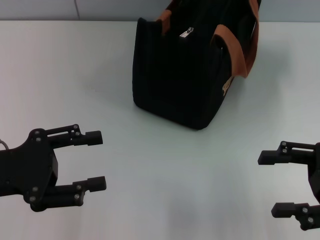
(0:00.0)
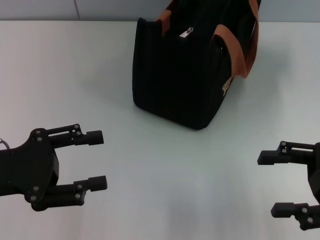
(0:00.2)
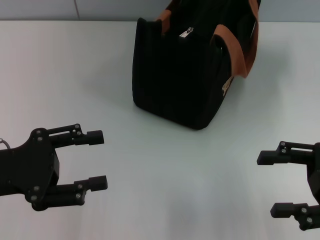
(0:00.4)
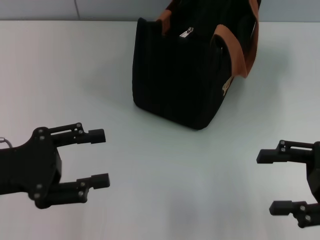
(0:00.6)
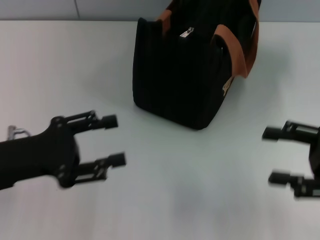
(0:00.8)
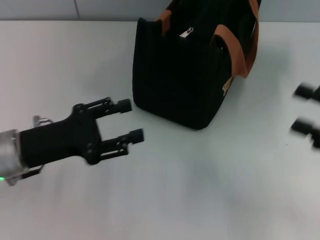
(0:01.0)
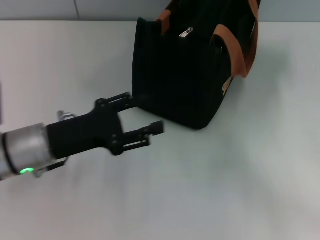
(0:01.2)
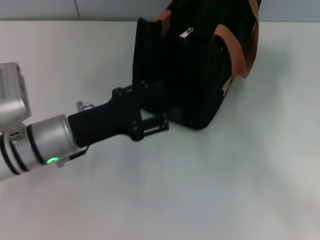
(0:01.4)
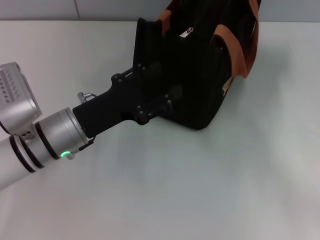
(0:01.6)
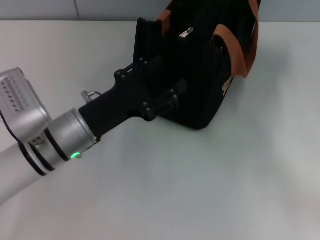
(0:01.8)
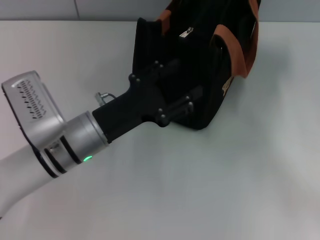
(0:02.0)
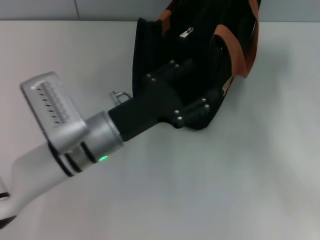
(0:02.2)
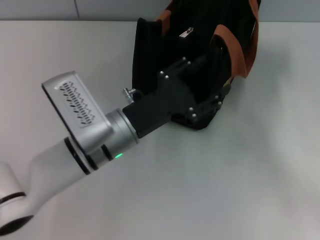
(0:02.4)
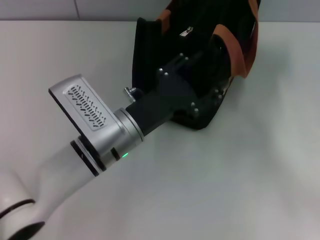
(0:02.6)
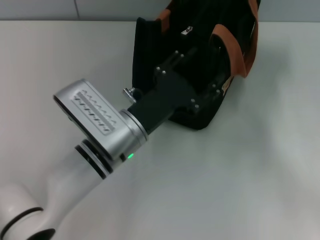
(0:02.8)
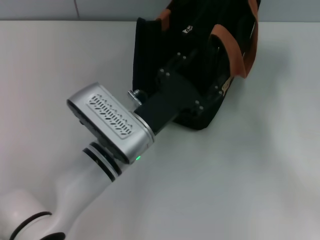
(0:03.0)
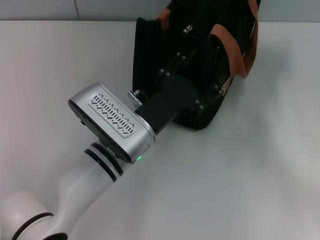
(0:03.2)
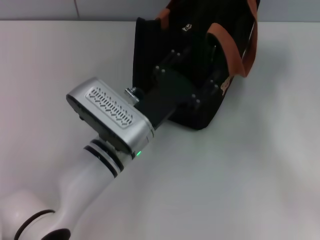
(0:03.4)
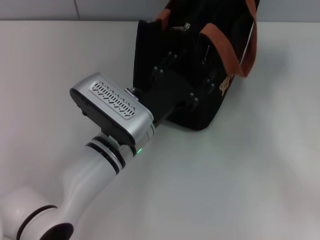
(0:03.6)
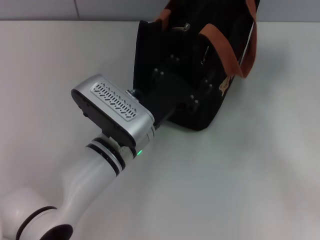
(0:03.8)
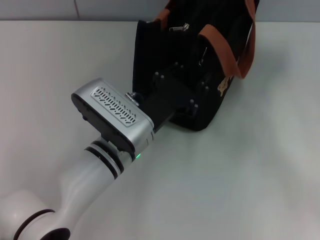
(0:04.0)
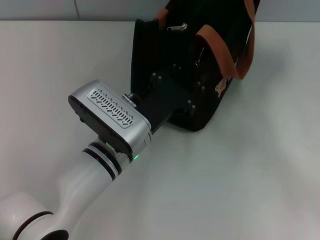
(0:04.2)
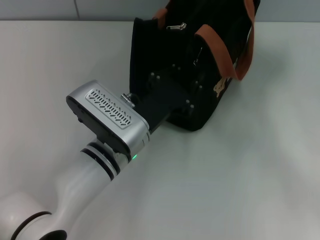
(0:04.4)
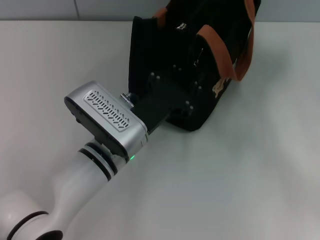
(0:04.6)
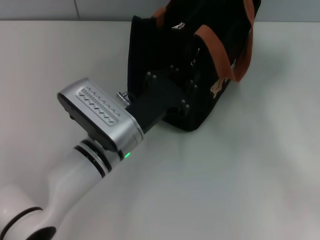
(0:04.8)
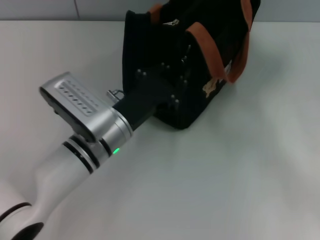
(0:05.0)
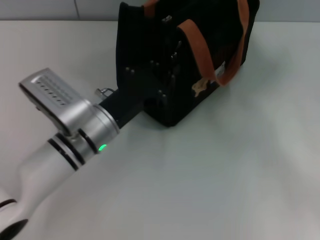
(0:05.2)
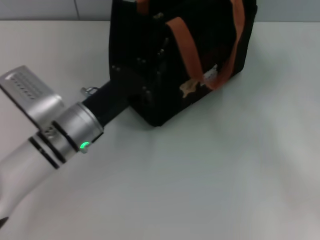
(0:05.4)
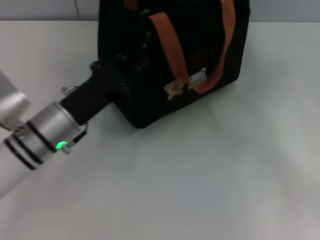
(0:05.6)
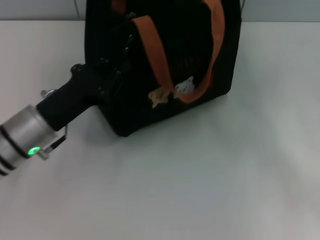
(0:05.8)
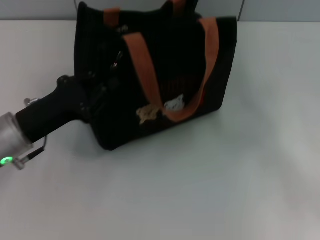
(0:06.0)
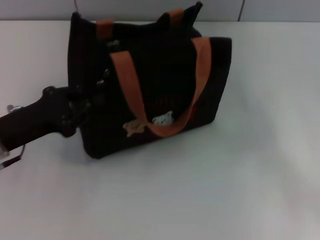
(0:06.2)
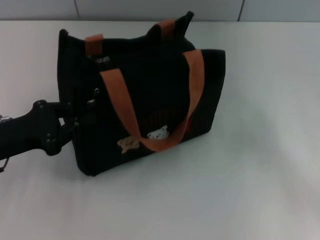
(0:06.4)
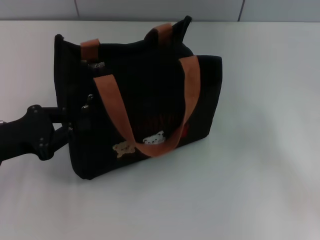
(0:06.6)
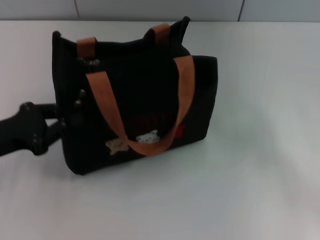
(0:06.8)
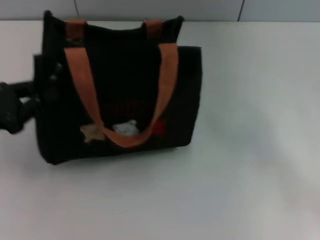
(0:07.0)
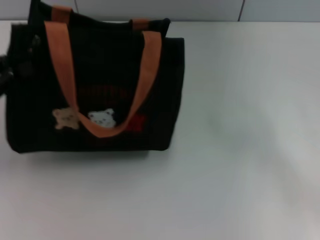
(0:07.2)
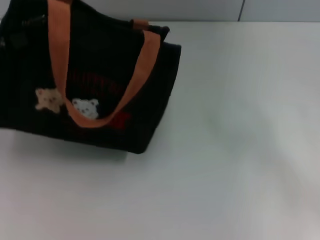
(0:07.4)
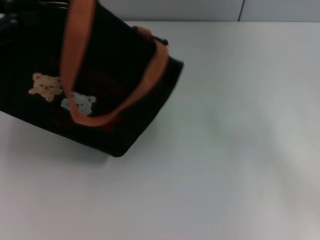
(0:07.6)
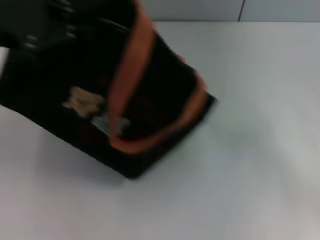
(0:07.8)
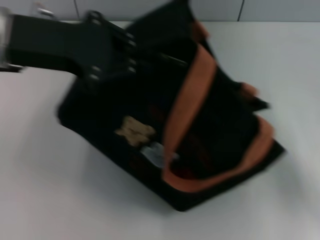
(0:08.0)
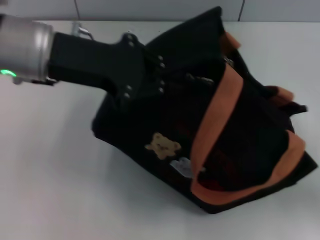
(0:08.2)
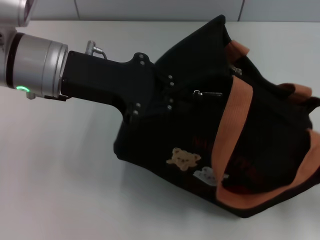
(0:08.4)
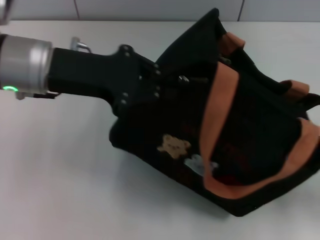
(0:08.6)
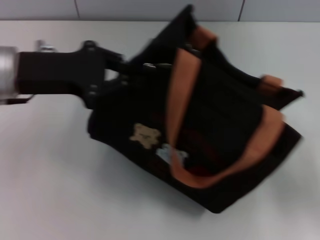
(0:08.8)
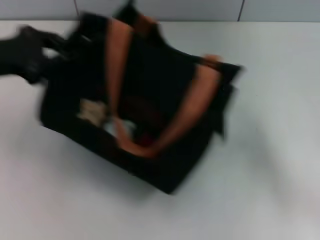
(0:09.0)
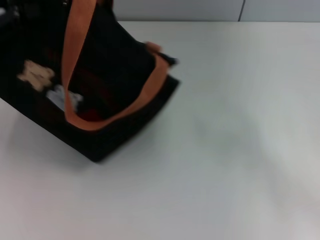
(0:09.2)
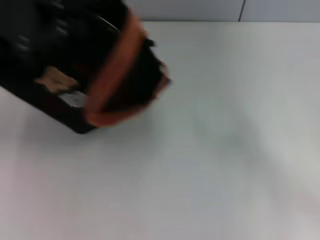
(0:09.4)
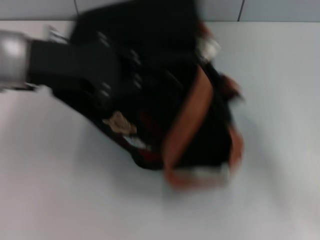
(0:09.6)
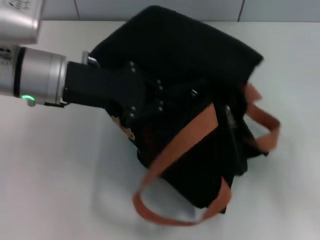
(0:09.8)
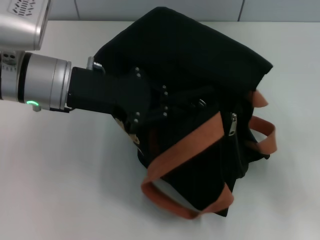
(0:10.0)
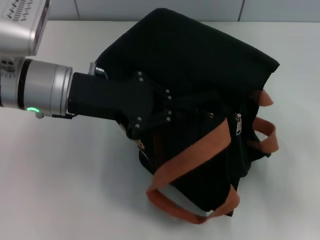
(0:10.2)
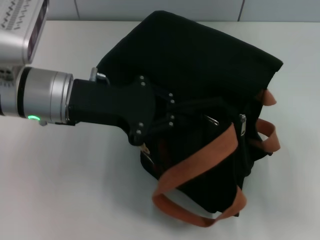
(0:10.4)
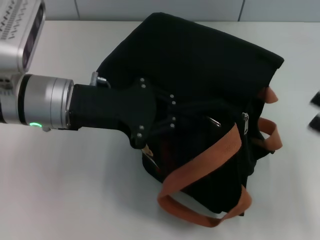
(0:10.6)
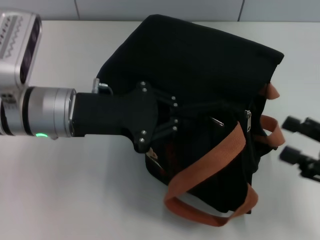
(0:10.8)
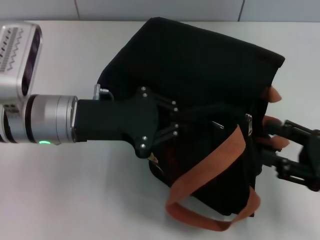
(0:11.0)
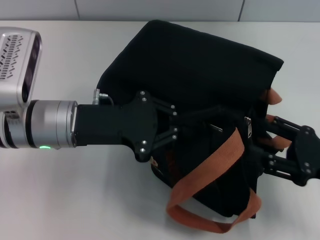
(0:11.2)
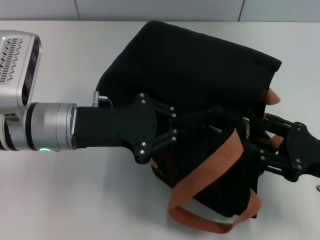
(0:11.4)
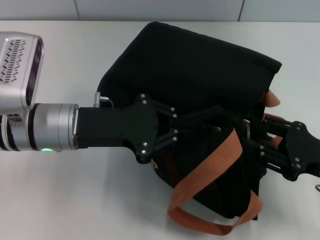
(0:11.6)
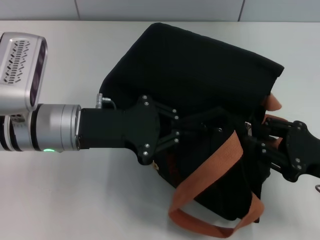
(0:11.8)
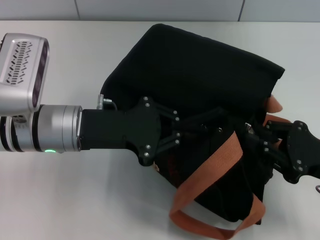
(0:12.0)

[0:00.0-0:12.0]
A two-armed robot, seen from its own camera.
0:00.0 to 0:01.6: The left gripper travels to the right, forward and downward by approximately 15 cm; the right gripper travels to the right by roughly 5 cm.
0:01.6 to 0:03.0: The left gripper shifts some 10 cm to the right.
0:03.0 to 0:04.4: The left gripper closes up.
0:04.4 to 0:06.0: The left gripper is displaced to the left by about 15 cm.
0:06.0 to 0:07.6: The left gripper is displaced upward and to the left by approximately 20 cm.
0:07.6 to 0:09.0: The left gripper travels to the right and back again, roughly 15 cm each way.
0:09.0 to 0:10.4: The left gripper moves to the right, about 15 cm.
0:10.4 to 0:12.0: The right gripper is displaced to the left by about 5 cm, and closes up, while the left gripper moves about 5 cm.

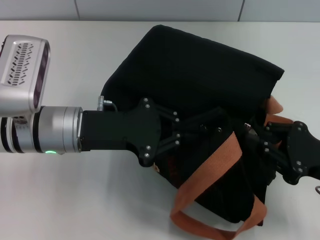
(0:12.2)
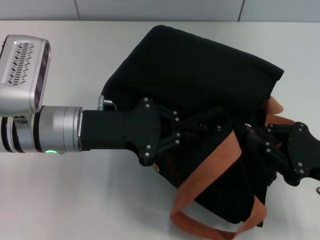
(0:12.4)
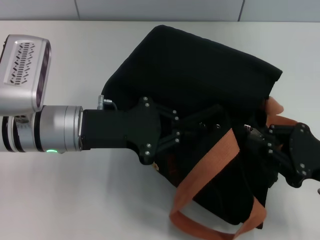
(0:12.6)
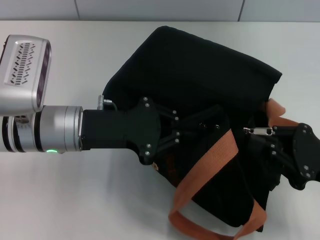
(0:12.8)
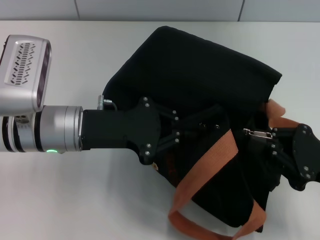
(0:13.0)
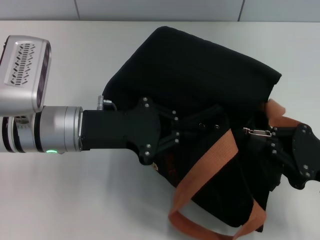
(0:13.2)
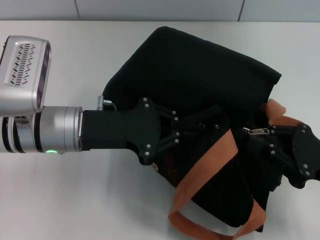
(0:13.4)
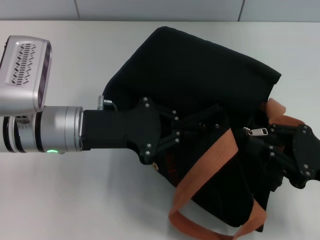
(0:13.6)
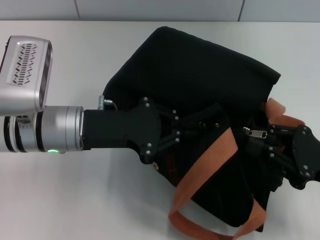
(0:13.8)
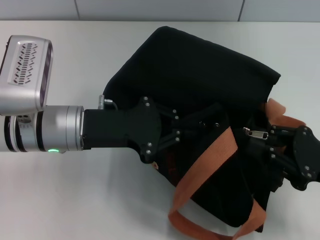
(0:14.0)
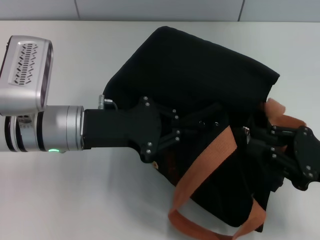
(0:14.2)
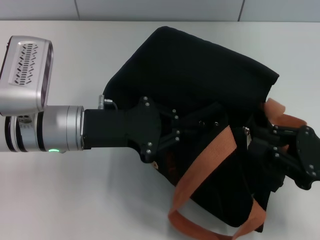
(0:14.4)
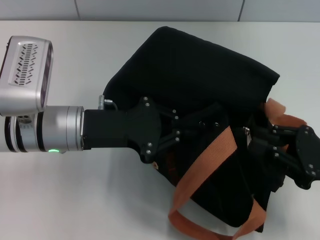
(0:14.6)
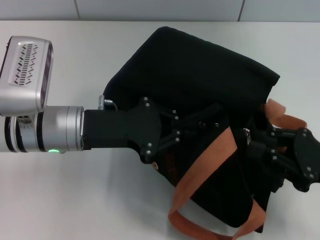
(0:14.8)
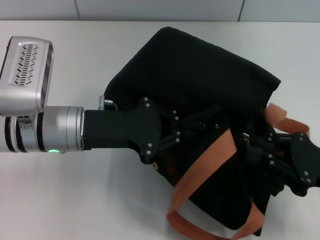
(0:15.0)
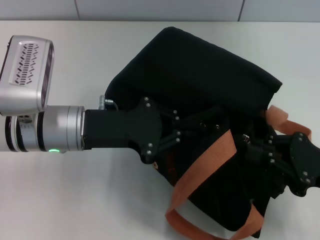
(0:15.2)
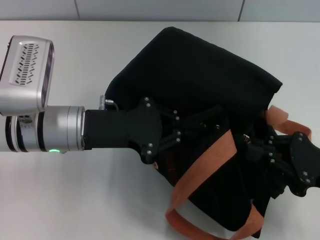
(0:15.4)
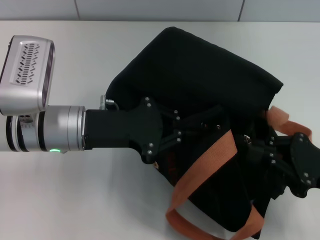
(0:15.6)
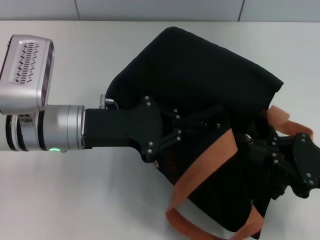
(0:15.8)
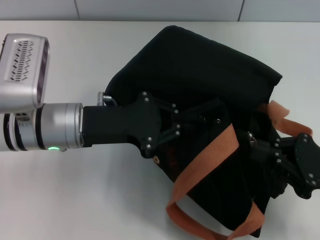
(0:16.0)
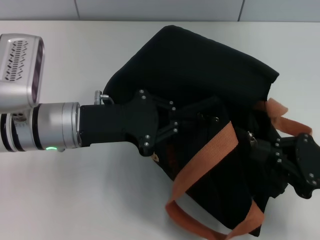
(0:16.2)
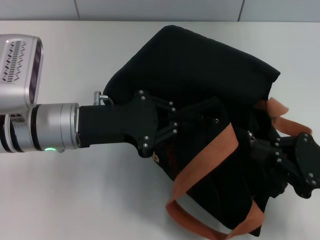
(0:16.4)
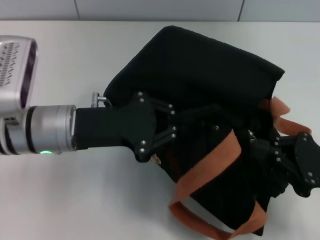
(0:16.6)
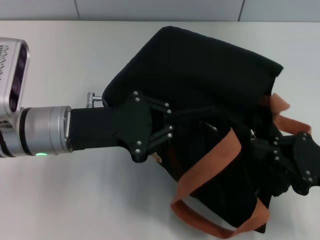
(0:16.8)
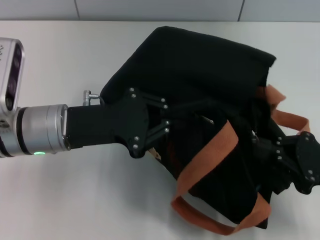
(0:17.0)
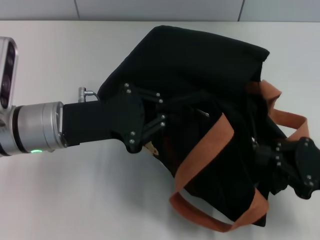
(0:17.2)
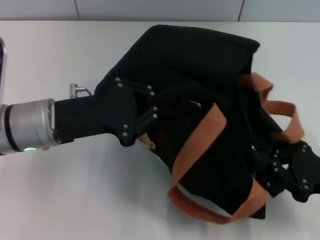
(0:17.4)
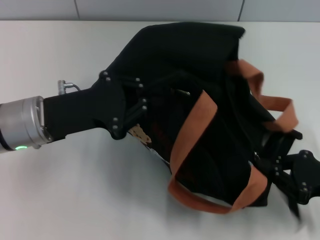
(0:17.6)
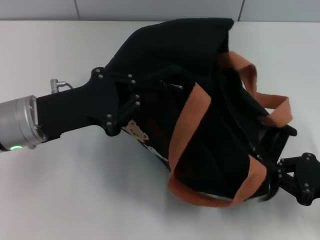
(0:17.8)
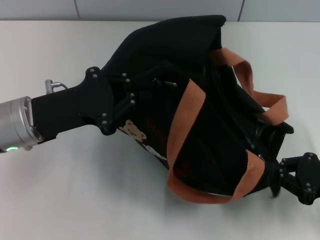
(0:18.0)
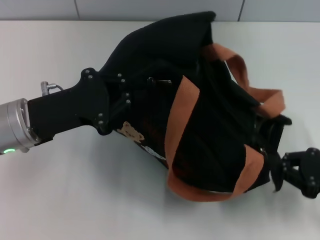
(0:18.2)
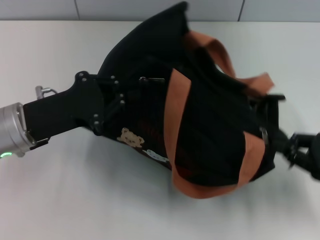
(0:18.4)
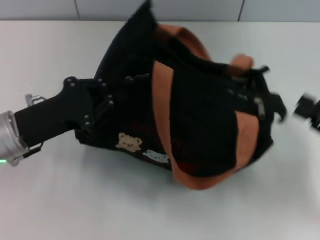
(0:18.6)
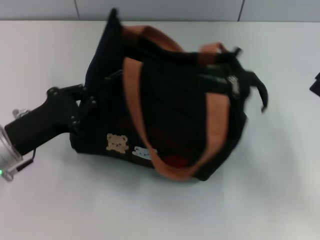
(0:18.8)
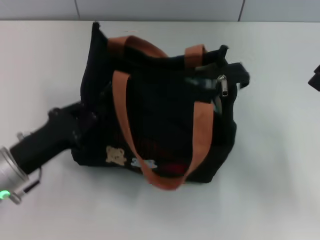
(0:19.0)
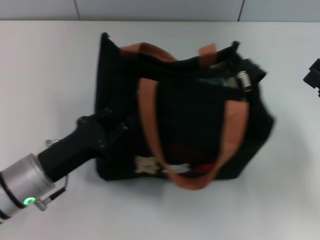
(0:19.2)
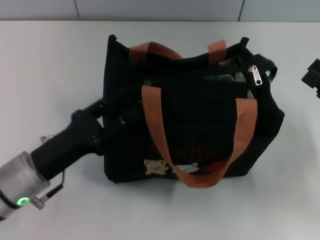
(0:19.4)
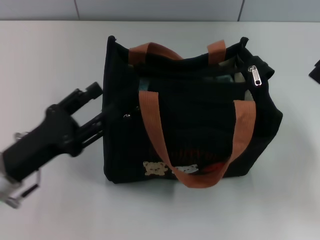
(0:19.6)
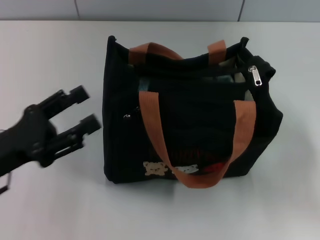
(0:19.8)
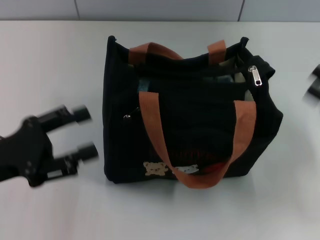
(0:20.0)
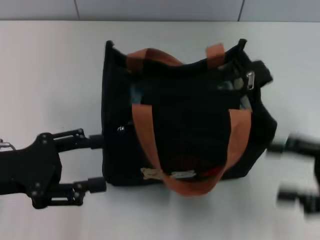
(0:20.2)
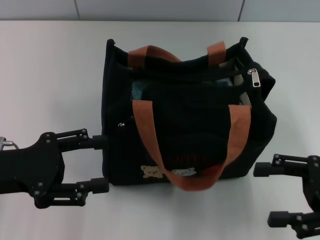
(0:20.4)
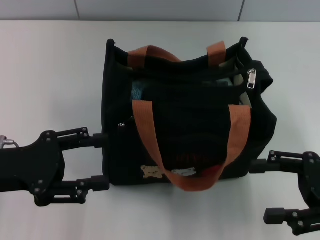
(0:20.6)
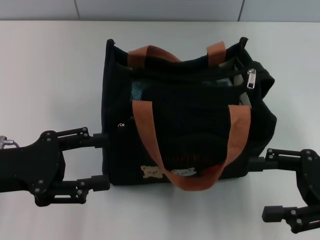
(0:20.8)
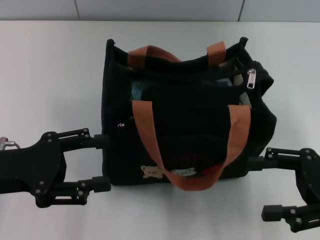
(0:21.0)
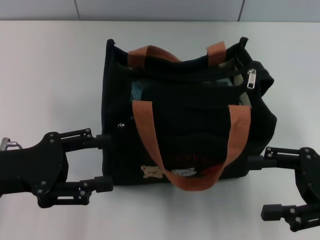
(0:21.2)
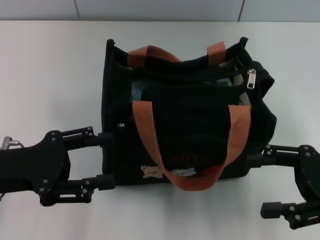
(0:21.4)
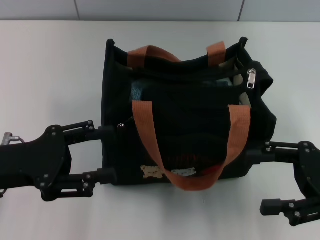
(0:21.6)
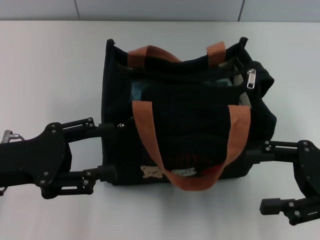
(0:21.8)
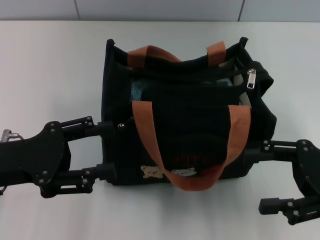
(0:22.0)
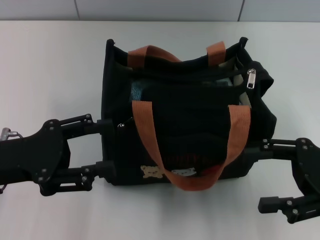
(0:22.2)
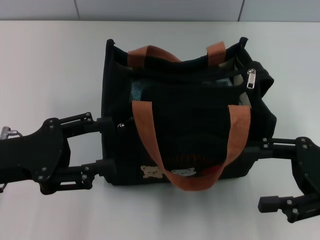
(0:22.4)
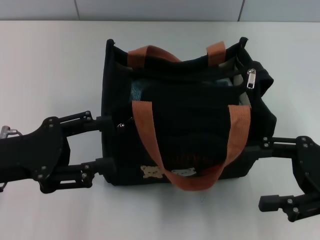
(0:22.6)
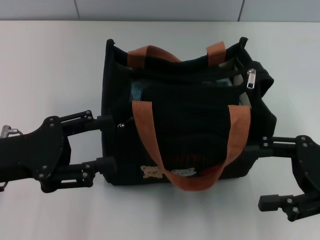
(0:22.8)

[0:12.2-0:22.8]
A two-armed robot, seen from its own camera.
Step, 0:12.2 to 0:18.4: Pull open the zipper with your right hand.
Step, 0:18.6 to 0:19.4: Grab the bag with your left hand.
0:12.2 to 0:13.8: Both grippers stay about where they are.
0:13.8 to 0:15.2: The two grippers keep their place.
0:15.2 to 0:16.8: The grippers move only a little.
0:18.2 to 0:19.8: The right gripper opens its fingers. Meanwhile the left gripper shifts approximately 5 cm backward, and opens its fingers.
0:19.8 to 0:21.2: The right gripper travels to the left by roughly 5 cm.
0:21.2 to 0:22.8: The grippers make only small movements.
